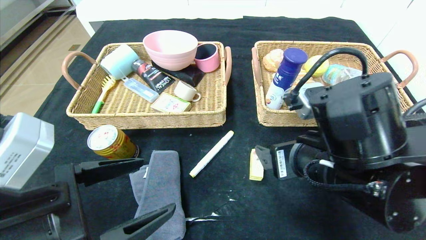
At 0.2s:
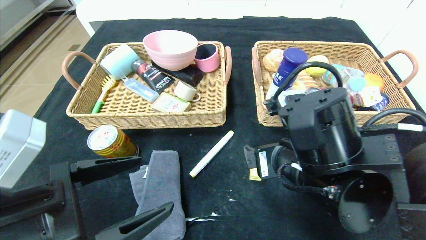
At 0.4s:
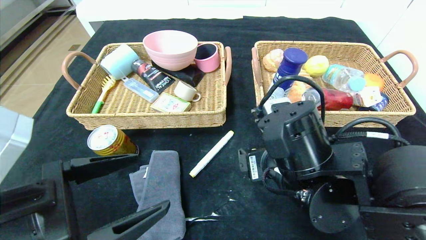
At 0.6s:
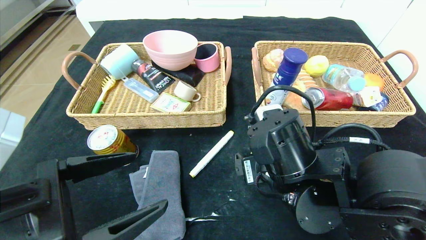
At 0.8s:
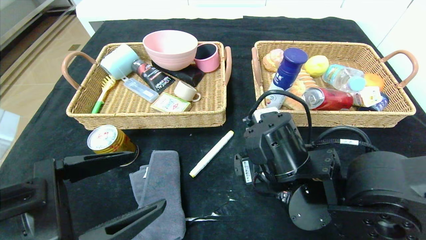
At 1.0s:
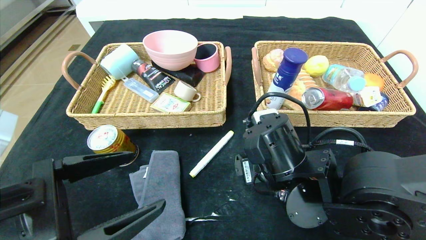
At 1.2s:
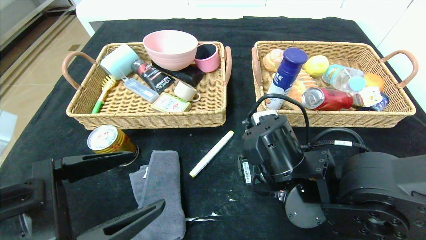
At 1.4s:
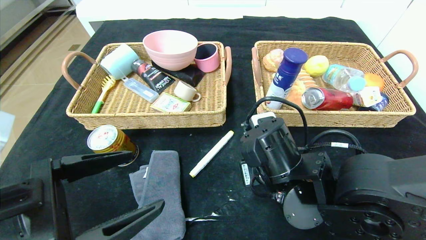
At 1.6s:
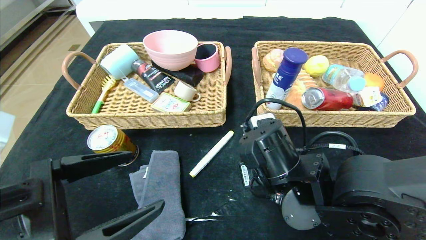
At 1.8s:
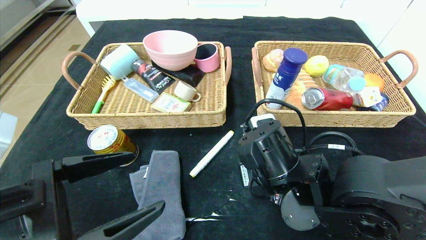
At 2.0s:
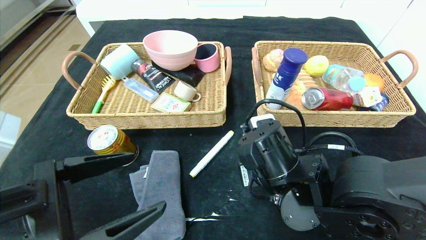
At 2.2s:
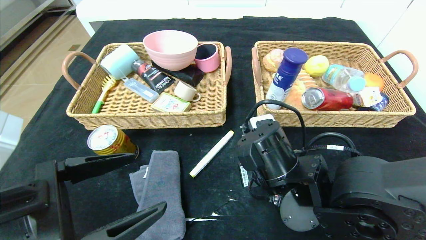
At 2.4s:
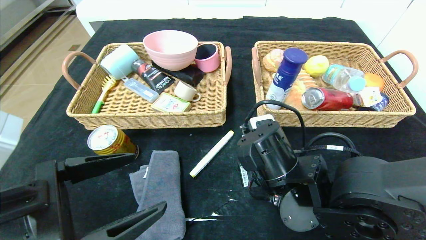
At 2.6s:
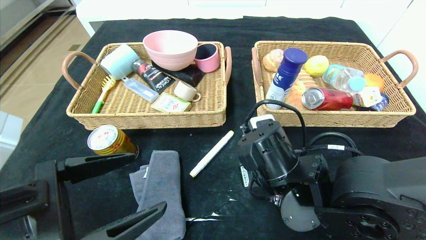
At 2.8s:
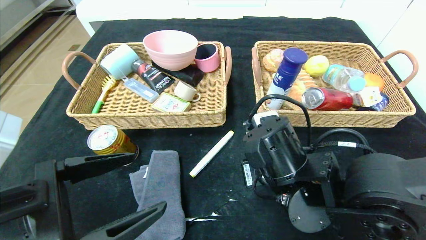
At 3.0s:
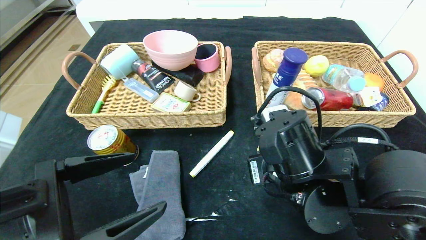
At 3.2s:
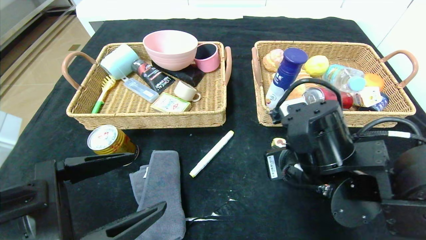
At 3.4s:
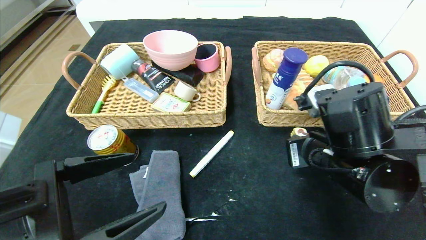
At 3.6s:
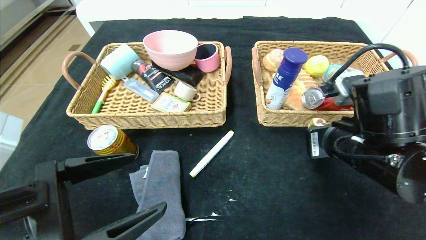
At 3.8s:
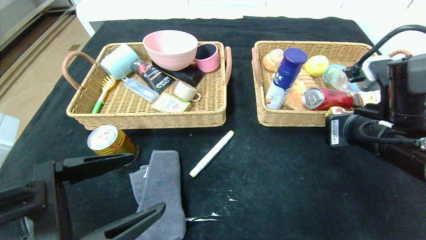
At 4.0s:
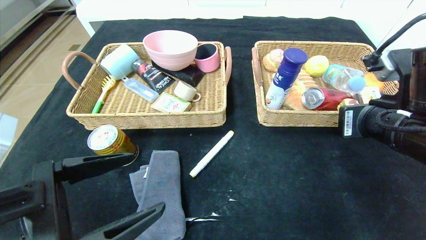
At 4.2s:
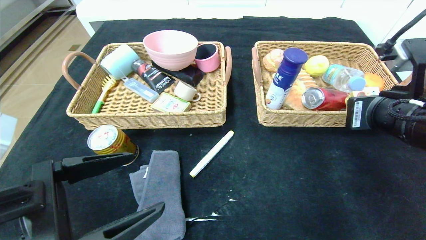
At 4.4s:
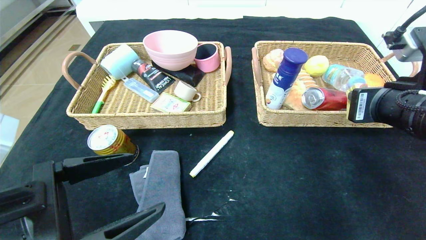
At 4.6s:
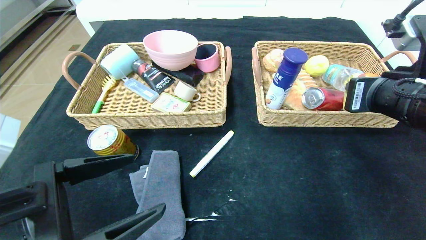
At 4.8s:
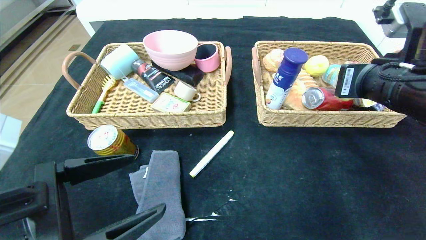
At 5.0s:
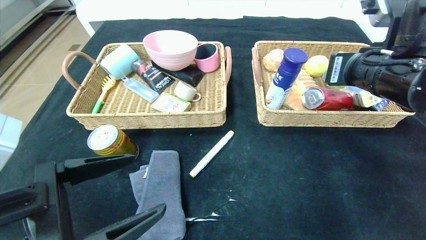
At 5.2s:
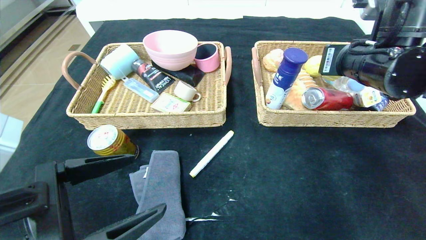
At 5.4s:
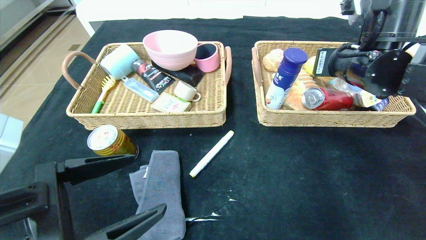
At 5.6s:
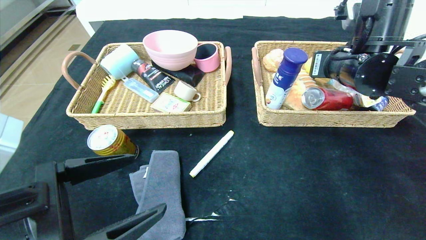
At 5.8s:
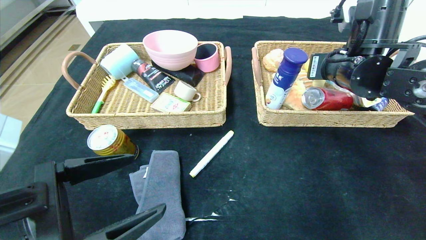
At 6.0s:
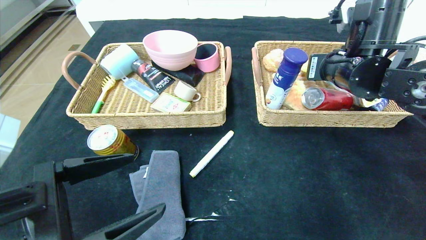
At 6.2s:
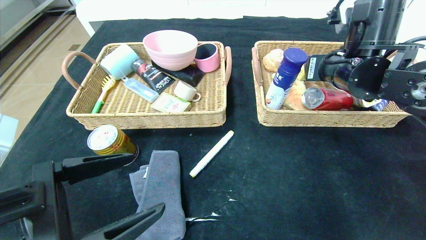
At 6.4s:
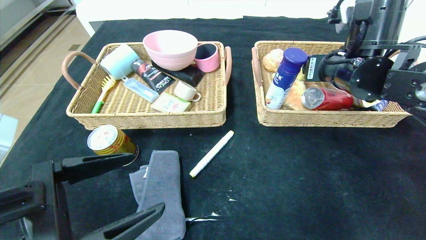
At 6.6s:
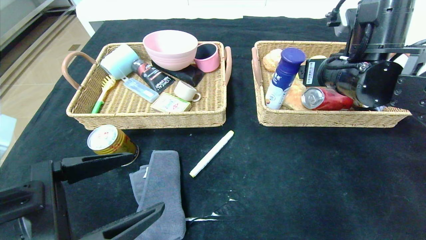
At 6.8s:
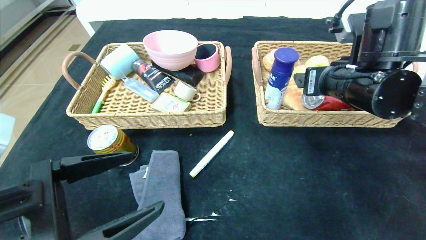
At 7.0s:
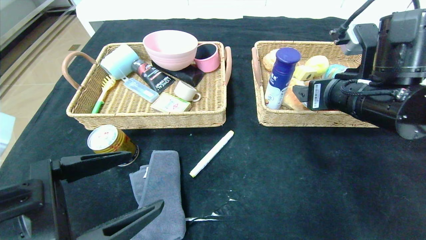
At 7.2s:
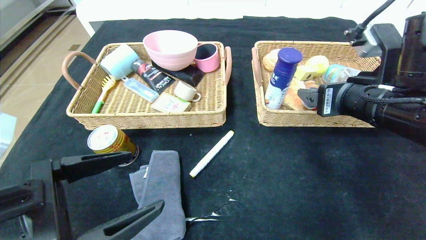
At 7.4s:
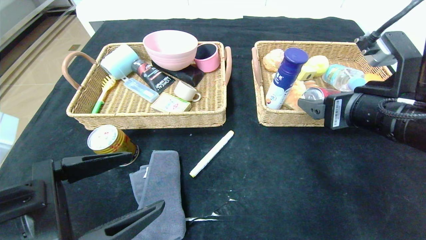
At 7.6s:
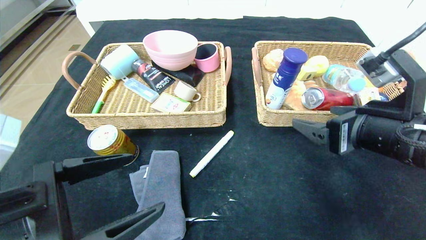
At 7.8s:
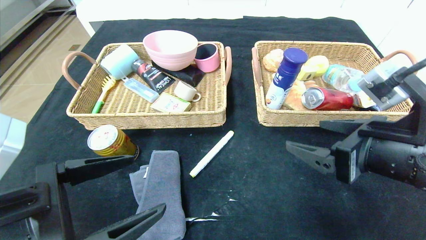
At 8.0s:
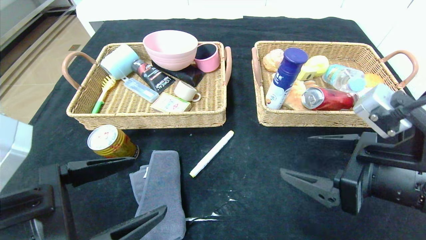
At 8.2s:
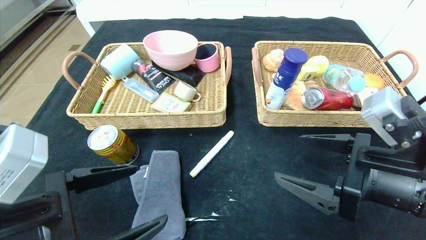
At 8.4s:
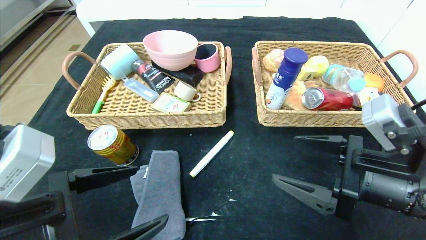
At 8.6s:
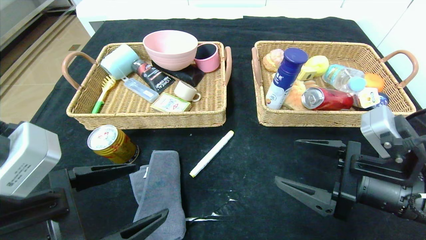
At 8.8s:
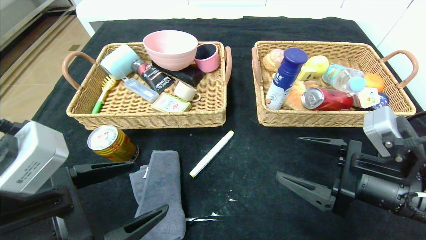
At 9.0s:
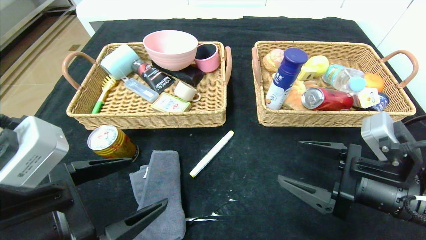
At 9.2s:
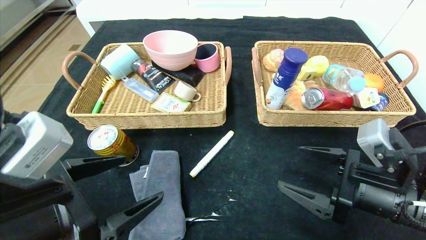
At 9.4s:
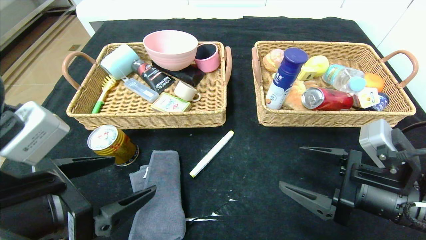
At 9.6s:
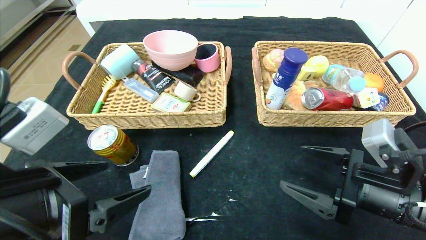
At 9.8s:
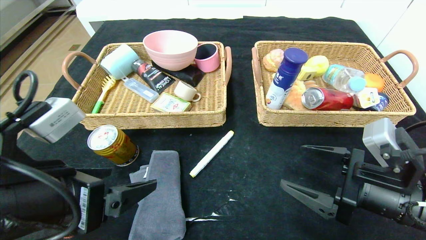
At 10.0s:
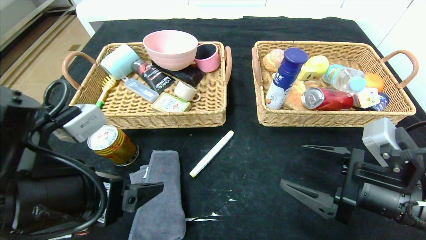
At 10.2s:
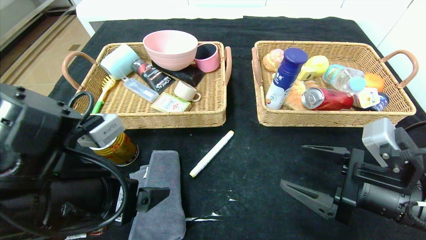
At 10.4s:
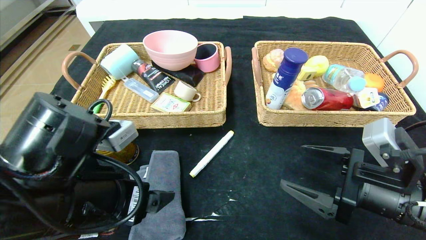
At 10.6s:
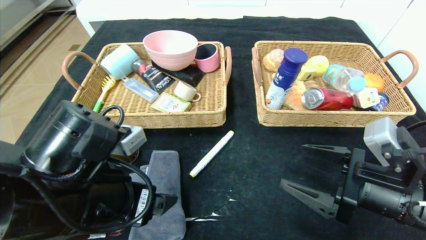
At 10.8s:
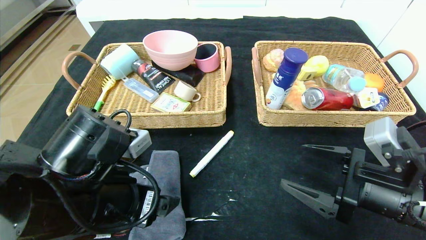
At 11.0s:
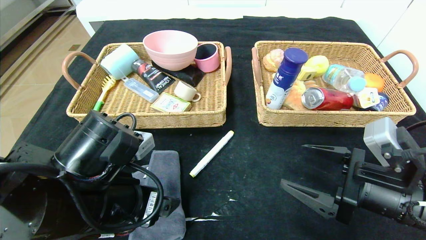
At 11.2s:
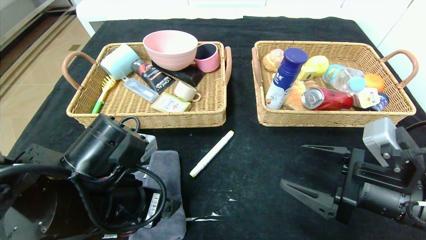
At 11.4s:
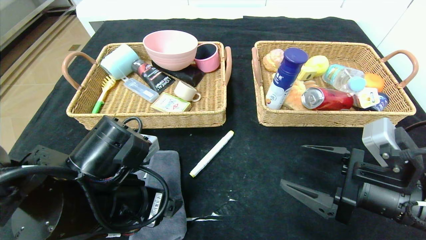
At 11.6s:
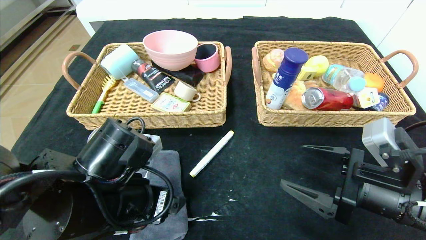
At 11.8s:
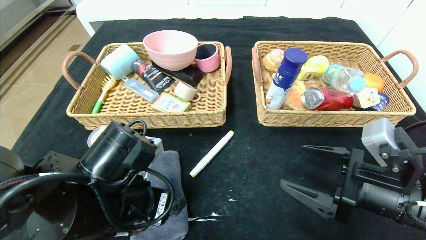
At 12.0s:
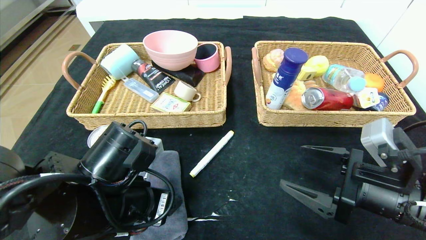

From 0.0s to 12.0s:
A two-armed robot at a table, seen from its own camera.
Step, from 0.0s to 5.8s: Grasp the yellow cake and put it in the right basket.
From 0.0s to 1.6s: The right gripper travels downward by some 5 cm, and closes its fingers.
From 1.6s to 3.0s: The grippers move only a little.
From 3.0s to 4.4s: The right gripper heads to the right and upward, covering some 15 cm.
From 4.4s to 6.0s: The right gripper travels forward by some 10 cm, and opens.
From 6.0s to 7.6s: The right gripper travels backward by some 15 cm, and opens.
From 7.6s to 9.0s: The right gripper is displaced downward by some 10 cm.
From 9.0s to 10.4s: The left gripper shifts by approximately 5 cm.
From 10.4s to 12.0s: The left gripper changes place by some 5 cm.

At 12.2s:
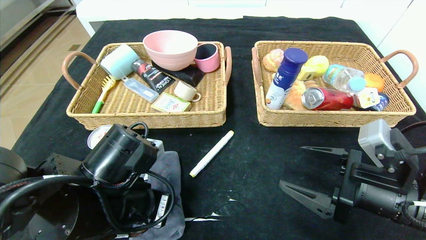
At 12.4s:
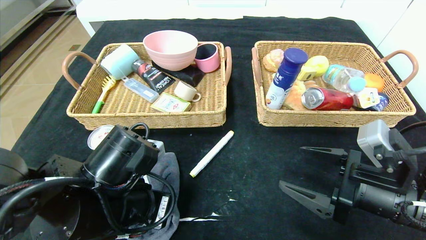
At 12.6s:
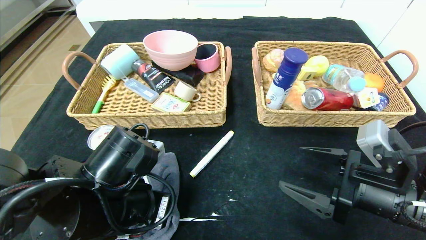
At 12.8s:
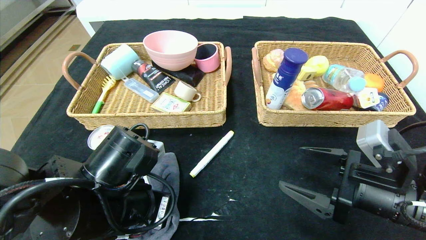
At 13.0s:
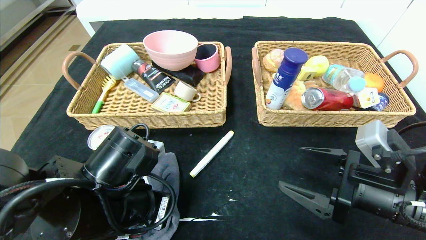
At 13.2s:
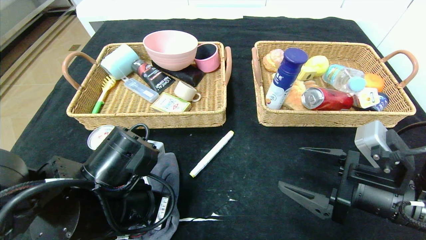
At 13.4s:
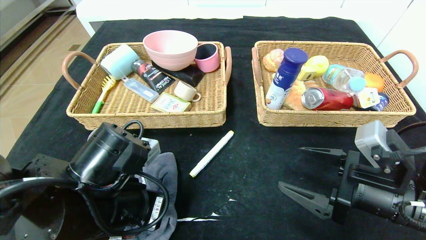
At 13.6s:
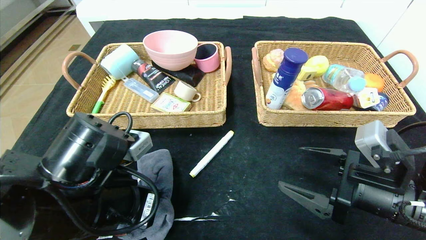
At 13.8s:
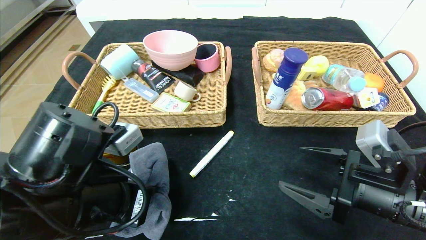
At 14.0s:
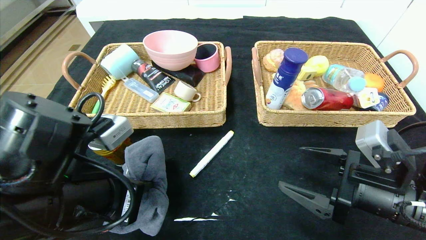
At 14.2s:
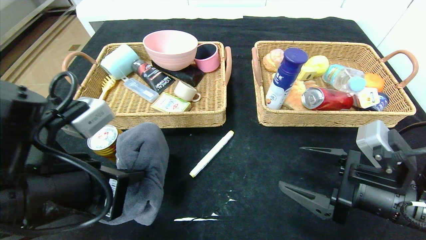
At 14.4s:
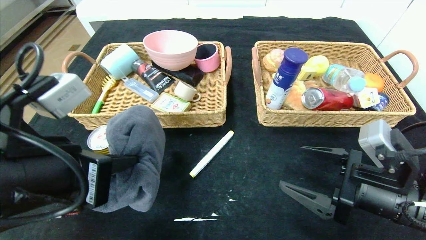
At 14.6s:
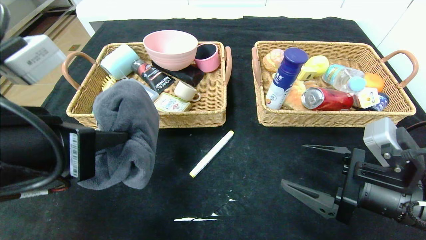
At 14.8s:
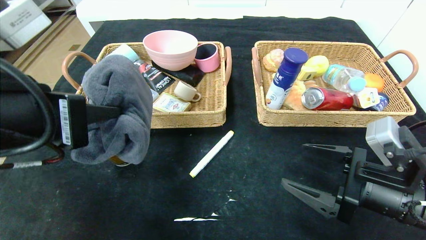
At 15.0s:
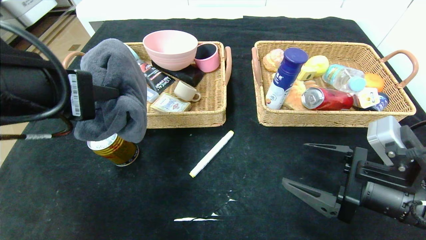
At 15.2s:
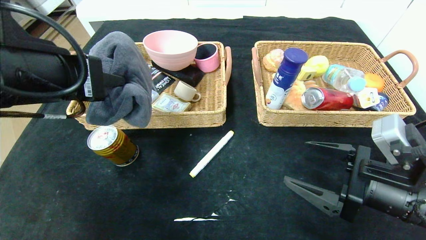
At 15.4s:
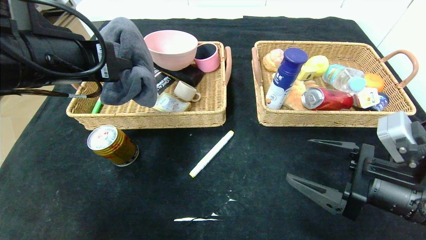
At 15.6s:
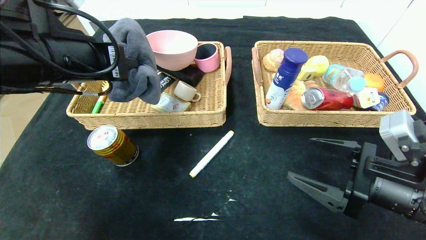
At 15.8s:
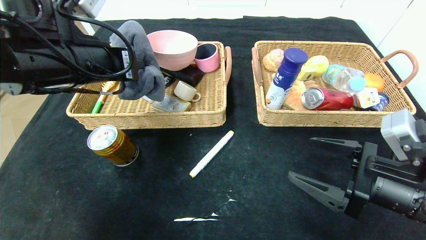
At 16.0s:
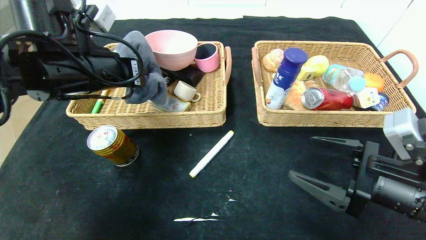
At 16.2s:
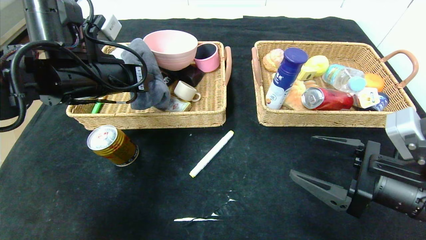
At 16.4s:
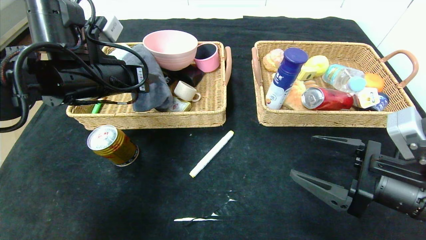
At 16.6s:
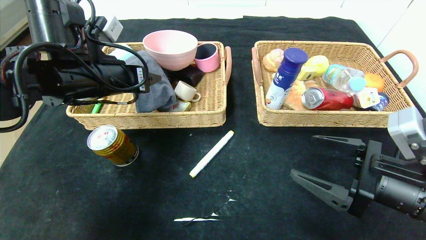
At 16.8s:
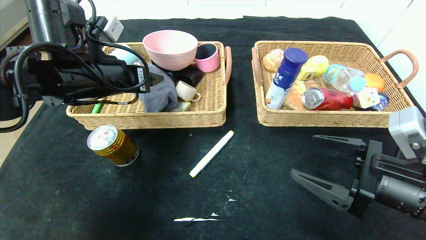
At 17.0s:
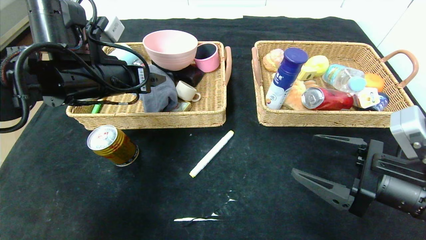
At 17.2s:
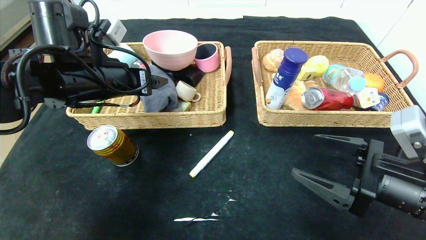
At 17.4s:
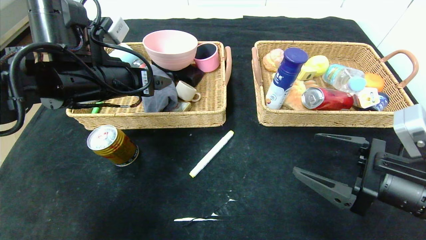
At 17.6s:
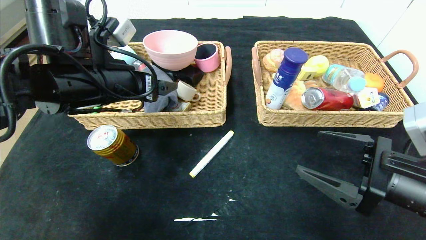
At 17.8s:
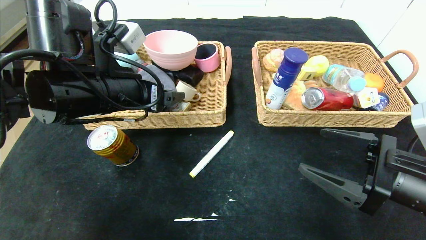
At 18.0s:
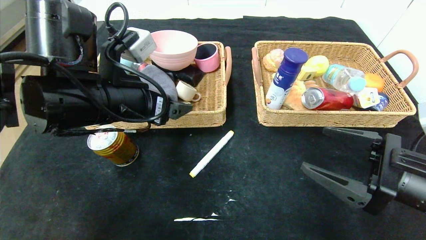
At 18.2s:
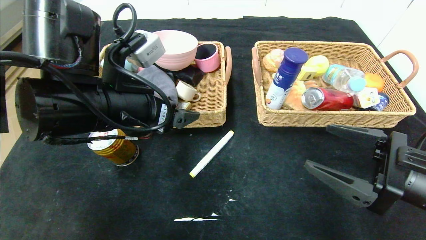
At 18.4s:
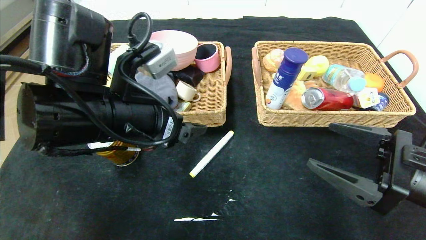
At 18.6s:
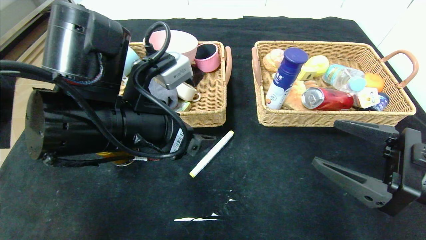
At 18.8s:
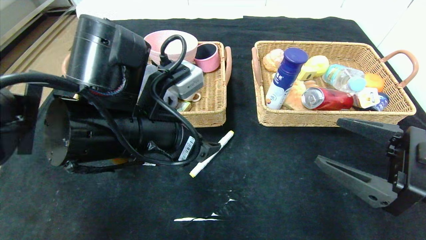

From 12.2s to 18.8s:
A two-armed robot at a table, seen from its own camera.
Step, from 12.2s to 17.0s: Grasp the gray towel and put it in the left basket.
From 12.2s to 13.8s: The left gripper closes up.
From 13.8s to 15.4s: The left gripper goes approximately 15 cm upward and forward.
From 15.4s to 17.2s: The left gripper heads forward, covering roughly 10 cm, and opens.
From 17.2s to 18.8s: The left gripper moves to the right and backward, roughly 15 cm.
